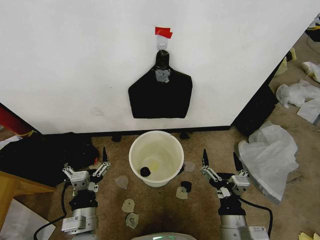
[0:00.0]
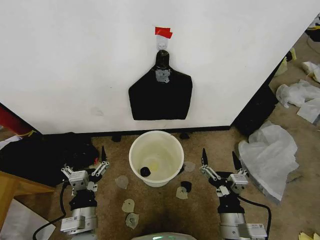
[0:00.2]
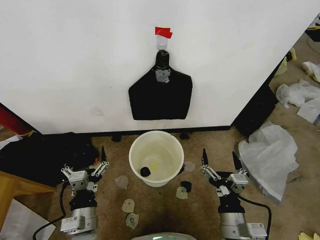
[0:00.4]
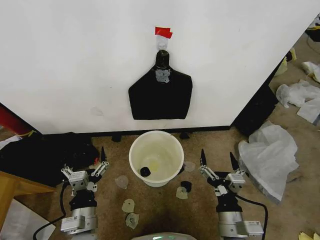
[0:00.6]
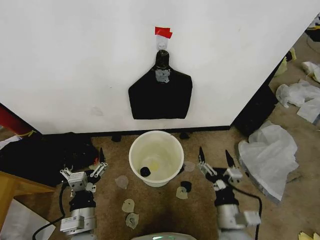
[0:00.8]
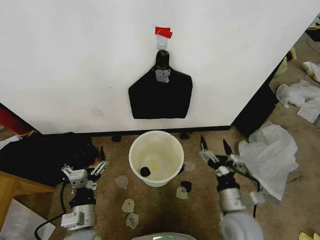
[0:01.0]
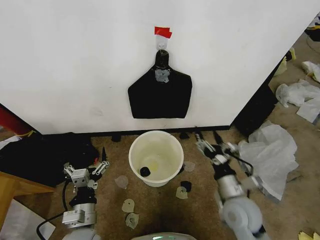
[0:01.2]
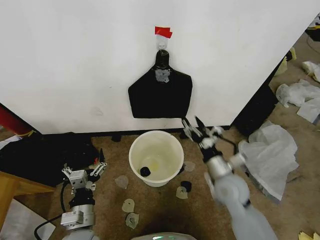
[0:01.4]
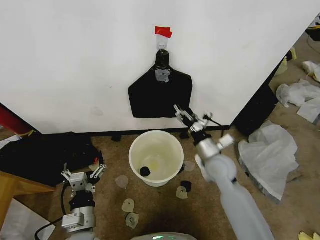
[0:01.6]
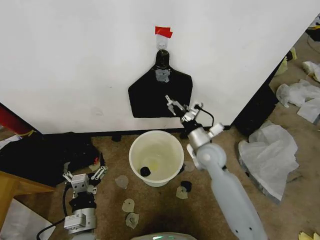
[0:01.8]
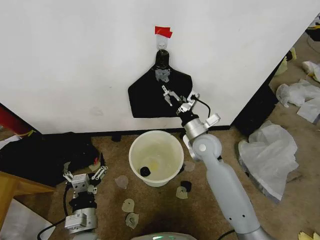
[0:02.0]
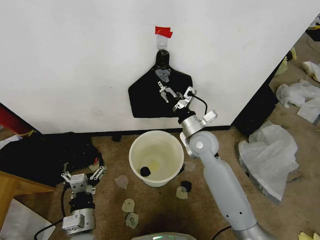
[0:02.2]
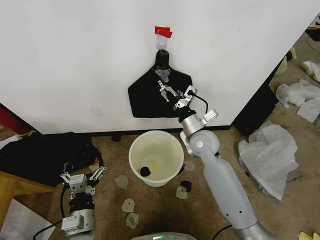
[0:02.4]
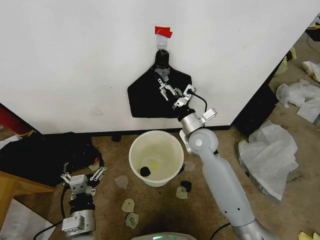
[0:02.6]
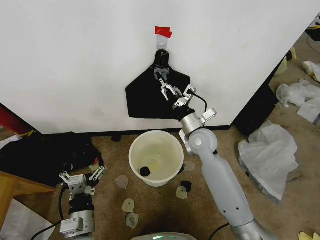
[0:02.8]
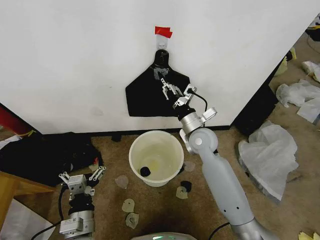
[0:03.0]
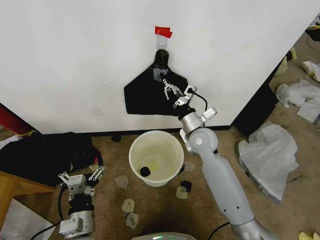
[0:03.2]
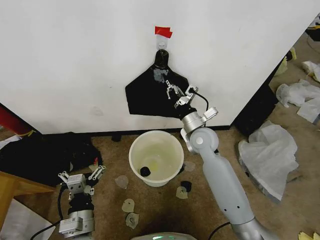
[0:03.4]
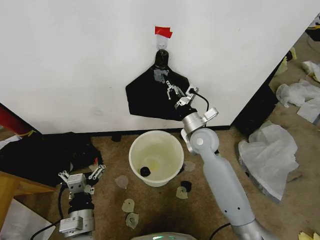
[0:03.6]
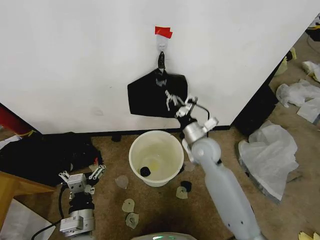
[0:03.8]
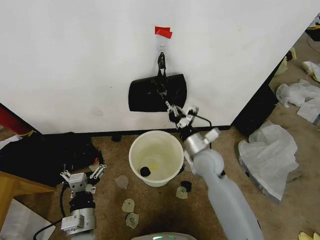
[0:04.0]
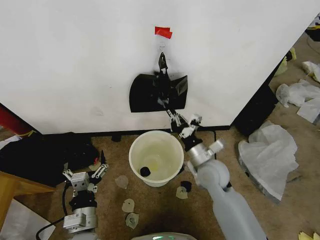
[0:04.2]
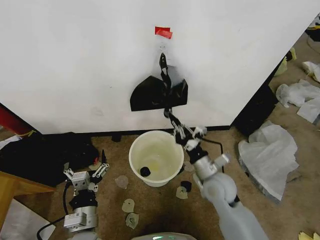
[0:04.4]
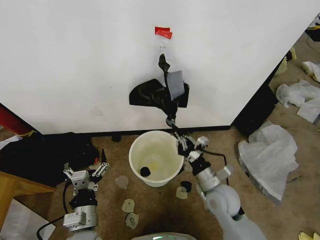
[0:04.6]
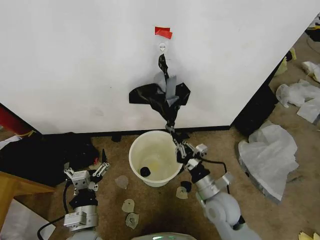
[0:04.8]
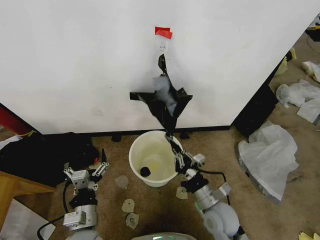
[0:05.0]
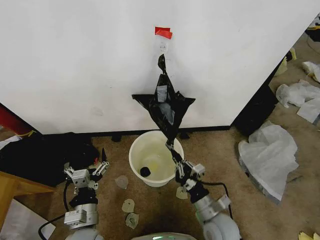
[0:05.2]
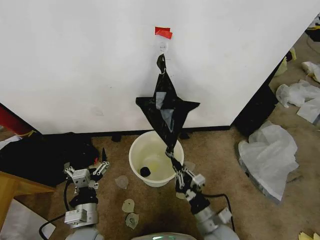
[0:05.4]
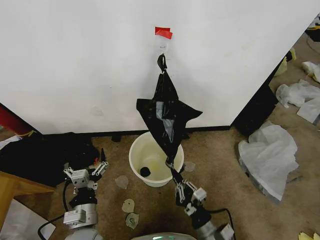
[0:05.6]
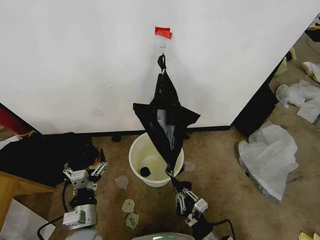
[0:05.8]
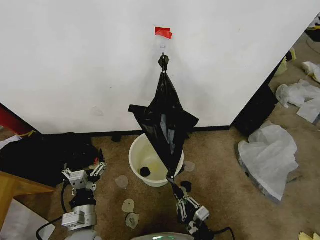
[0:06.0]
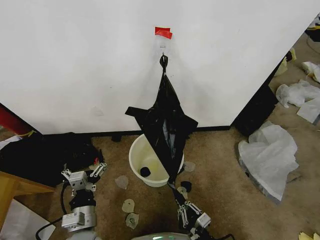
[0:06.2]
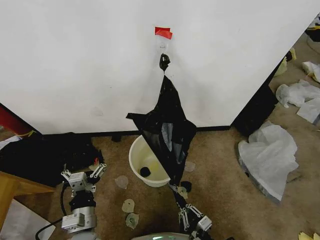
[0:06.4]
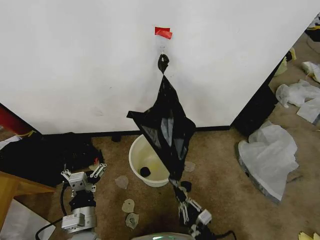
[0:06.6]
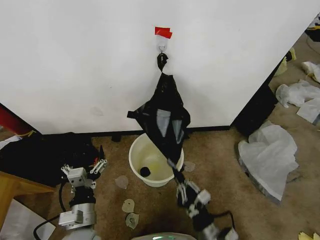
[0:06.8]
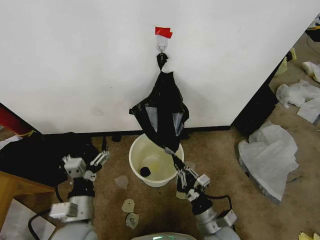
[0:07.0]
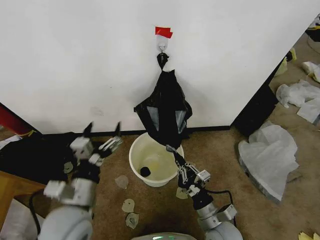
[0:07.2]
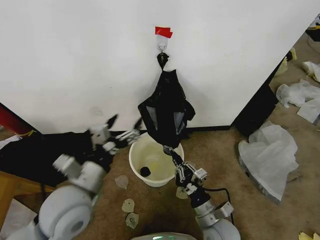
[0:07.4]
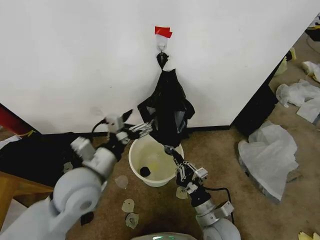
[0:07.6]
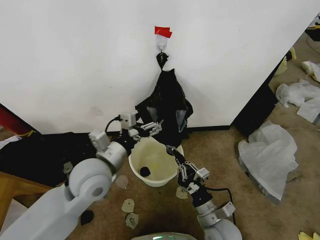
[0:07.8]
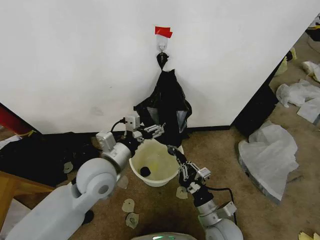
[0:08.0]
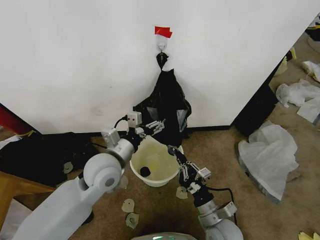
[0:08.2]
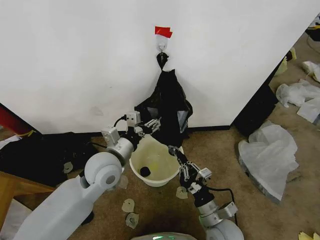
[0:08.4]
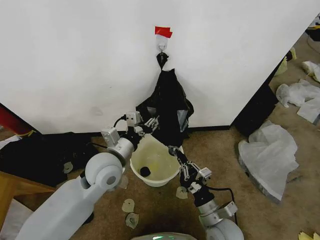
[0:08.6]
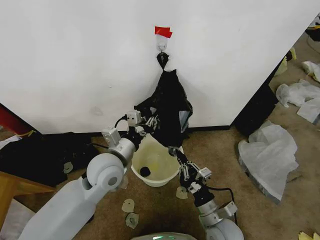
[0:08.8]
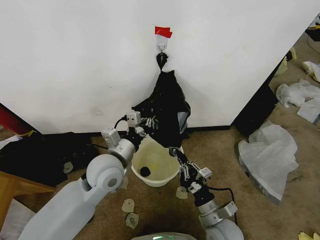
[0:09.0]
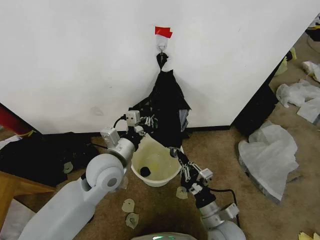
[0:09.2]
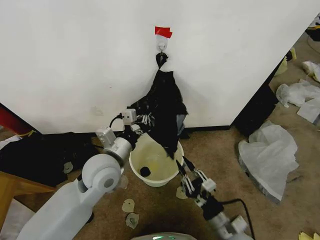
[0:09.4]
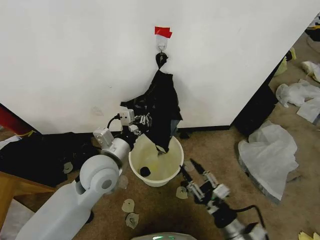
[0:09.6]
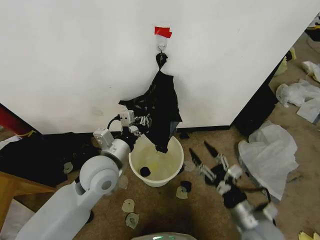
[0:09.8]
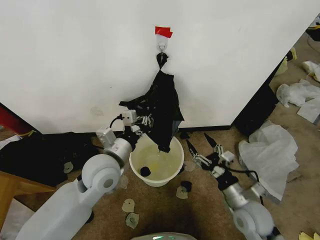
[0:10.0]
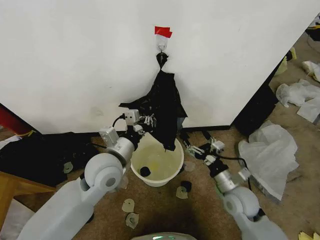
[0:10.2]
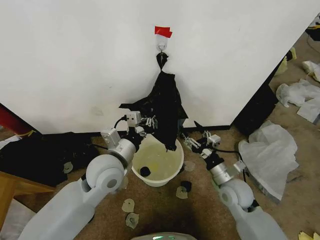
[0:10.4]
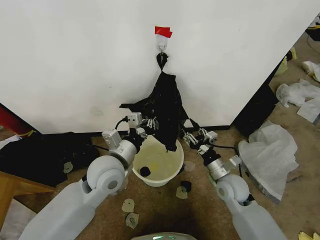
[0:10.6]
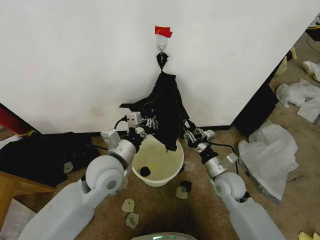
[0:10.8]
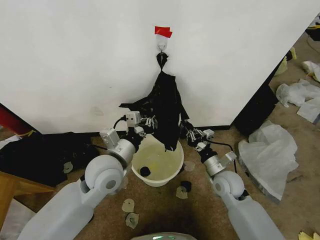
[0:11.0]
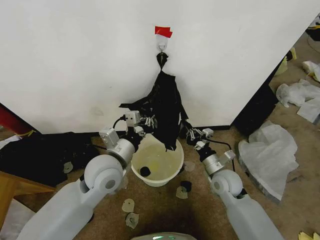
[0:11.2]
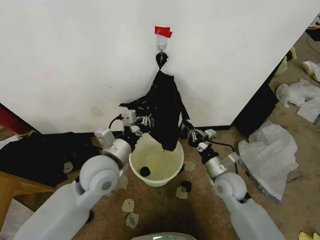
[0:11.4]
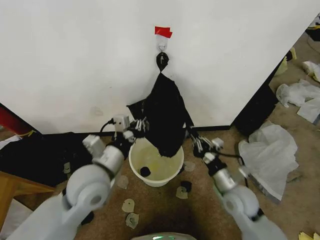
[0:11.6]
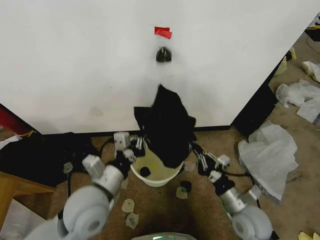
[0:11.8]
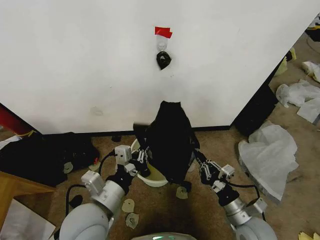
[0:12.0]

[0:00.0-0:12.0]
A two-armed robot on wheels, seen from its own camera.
Task of the whole recording: Place the garbage bag over the trash bin.
0:01.6 to 0:03.0: The right gripper goes about 5 cm forward, and closes up.
0:03.0 to 0:04.4: The right gripper is displaced backward and downward by about 15 cm.
0:04.4 to 0:06.0: The right gripper goes roughly 25 cm backward and downward.
0:06.0 to 0:07.6: The left gripper heads upward and forward, covering roughly 20 cm, while the right gripper goes roughly 10 cm forward and upward.
0:07.6 to 0:09.0: The left gripper travels forward by some 5 cm, and closes its fingers.
0:09.0 to 0:10.4: The right gripper travels forward and to the right by about 15 cm, and opens its fingers.
0:10.4 to 0:12.0: Both grippers travel together backward, approximately 10 cm. The right gripper closes its fingers.

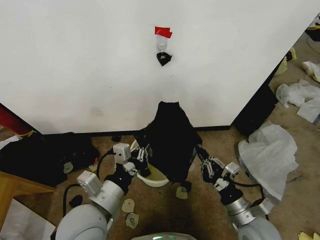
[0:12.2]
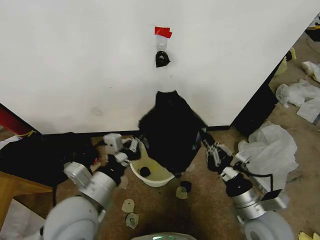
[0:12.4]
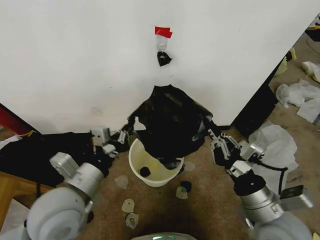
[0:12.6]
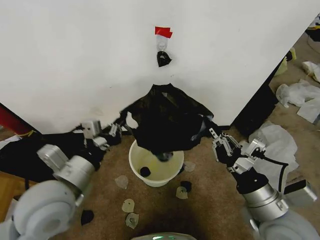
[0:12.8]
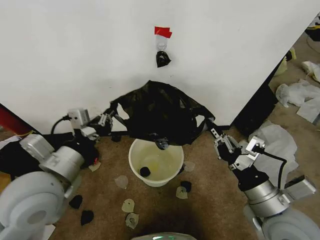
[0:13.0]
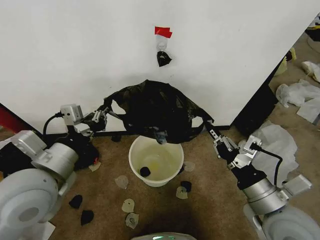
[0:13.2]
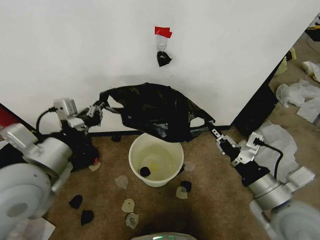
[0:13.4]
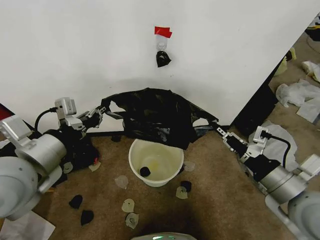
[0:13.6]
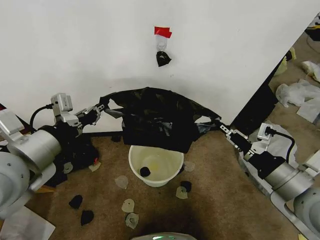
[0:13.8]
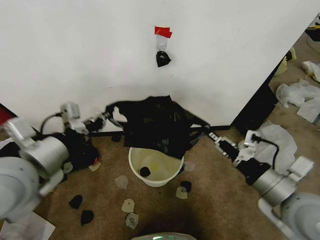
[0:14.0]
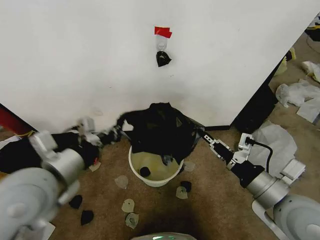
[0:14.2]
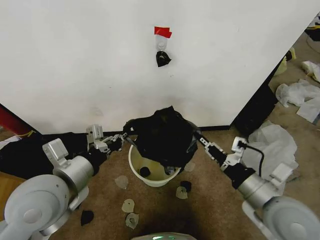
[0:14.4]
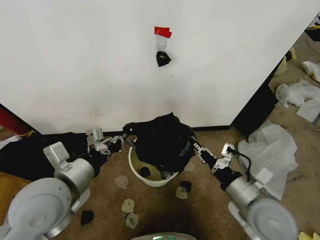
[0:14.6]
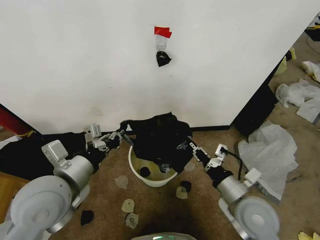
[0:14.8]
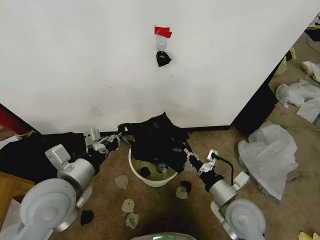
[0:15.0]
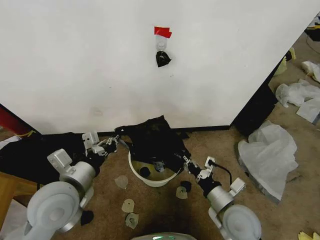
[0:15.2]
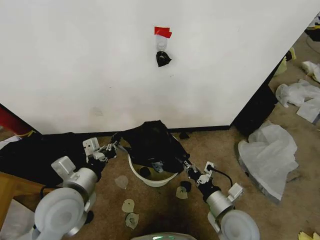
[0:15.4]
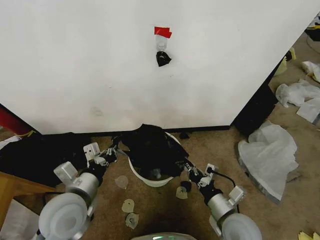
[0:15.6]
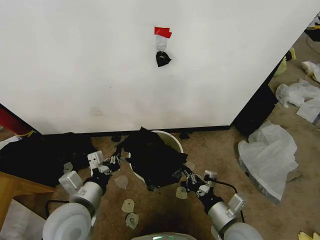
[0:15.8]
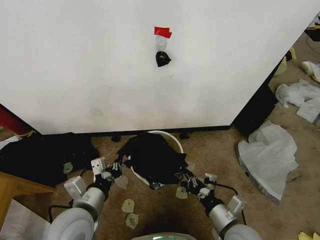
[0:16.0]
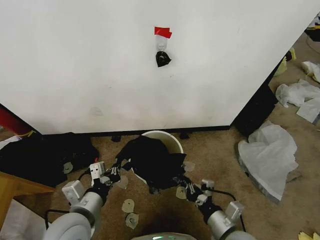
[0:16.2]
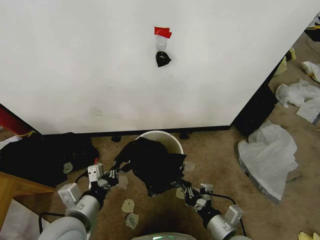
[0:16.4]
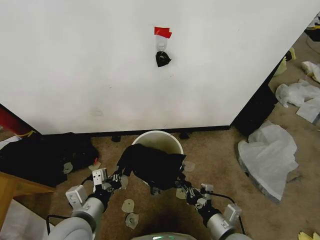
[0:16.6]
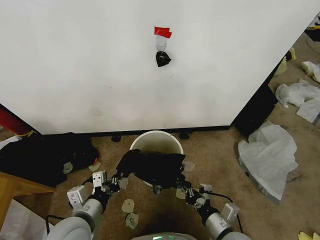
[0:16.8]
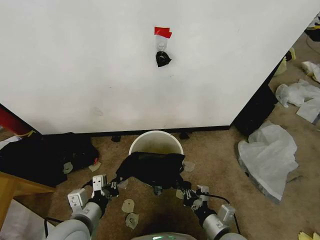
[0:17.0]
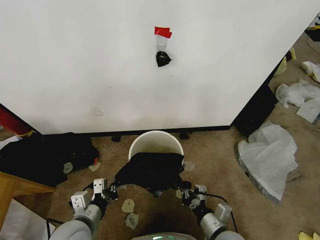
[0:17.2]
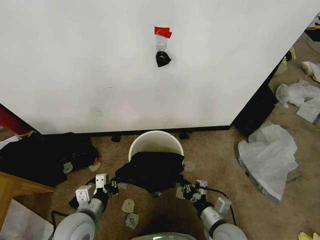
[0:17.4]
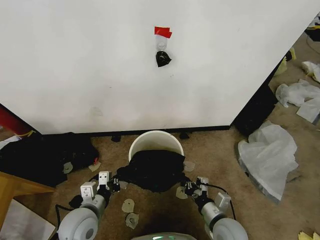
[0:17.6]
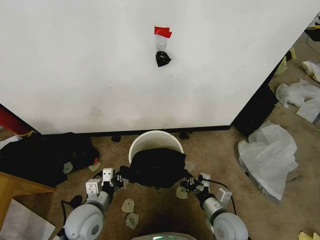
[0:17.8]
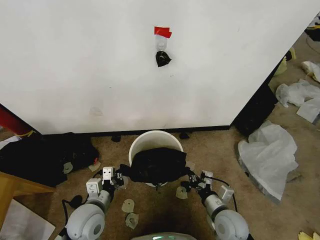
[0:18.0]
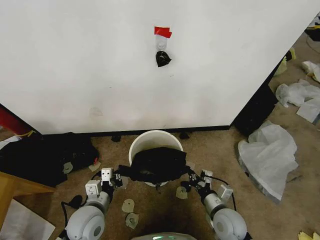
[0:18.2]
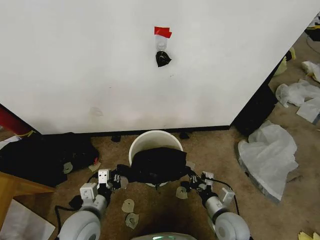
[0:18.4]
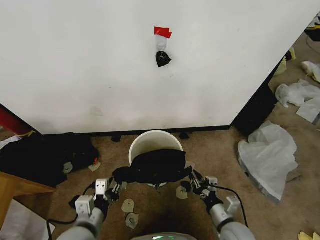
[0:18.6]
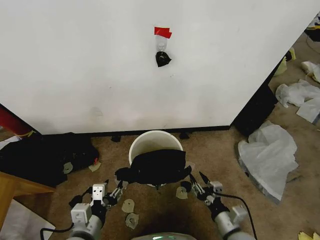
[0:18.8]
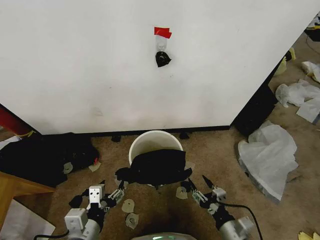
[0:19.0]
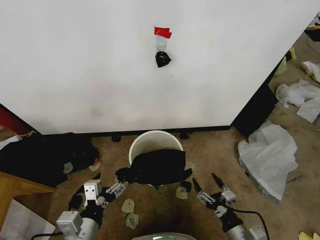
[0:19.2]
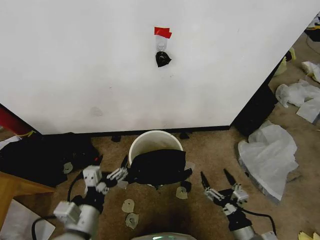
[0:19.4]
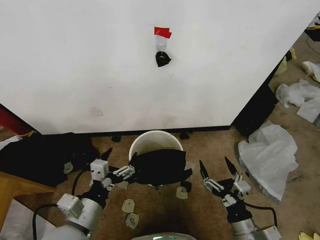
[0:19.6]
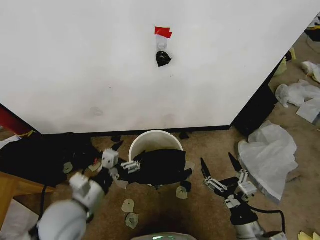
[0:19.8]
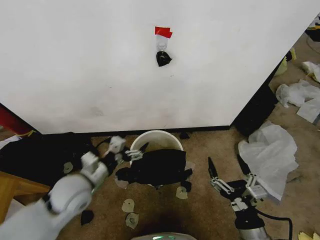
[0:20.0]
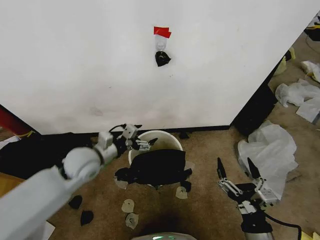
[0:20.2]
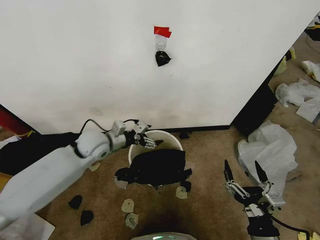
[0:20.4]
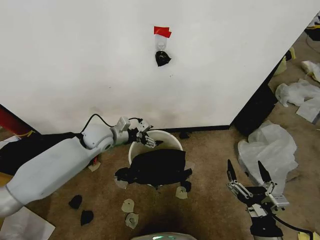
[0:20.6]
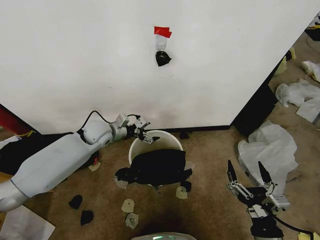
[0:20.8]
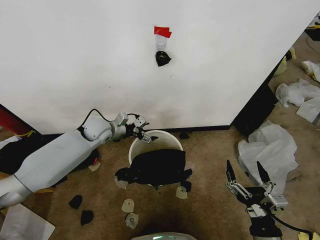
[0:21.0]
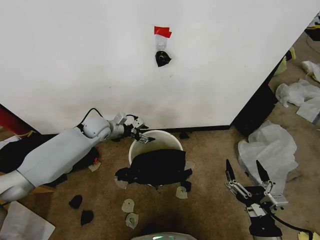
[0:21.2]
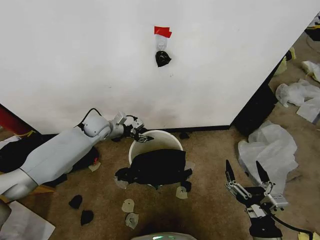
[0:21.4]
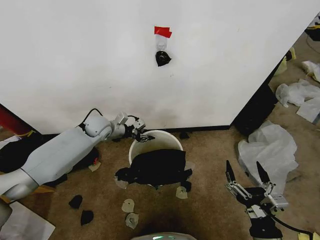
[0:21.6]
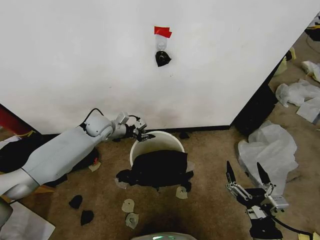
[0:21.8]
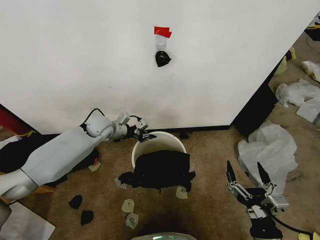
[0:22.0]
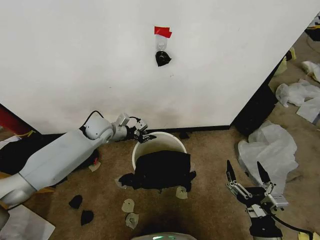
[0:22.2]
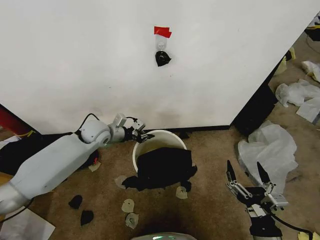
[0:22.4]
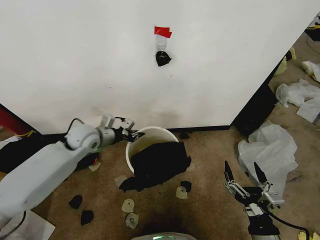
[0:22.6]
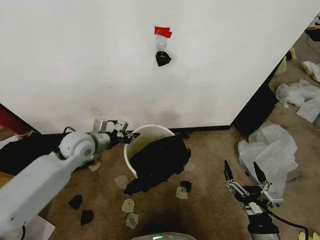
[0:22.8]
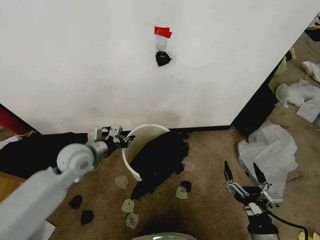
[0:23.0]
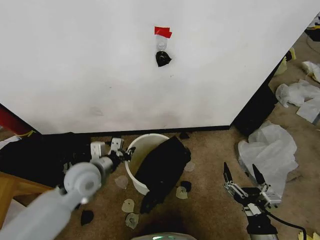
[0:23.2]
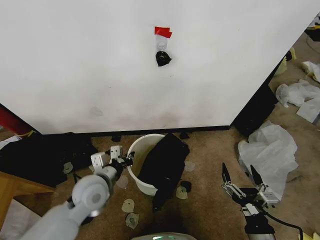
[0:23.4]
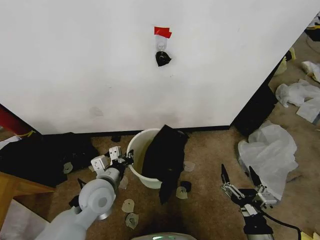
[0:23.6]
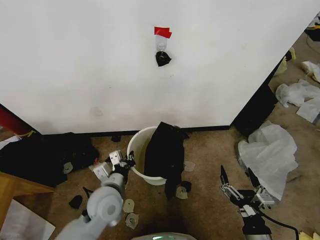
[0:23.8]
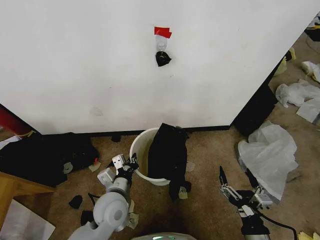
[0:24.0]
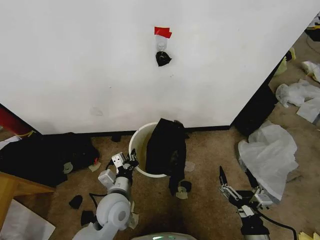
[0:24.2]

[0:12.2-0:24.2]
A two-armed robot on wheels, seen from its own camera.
Task of the whole recording: Place the garbage bag over the trash bin.
0:12.2 to 0:13.8: The right gripper moves upward, approximately 20 cm; the left gripper goes approximately 20 cm upward and to the left.
0:13.8 to 0:15.2: The right gripper goes approximately 20 cm downward and to the left. The left gripper travels downward by approximately 15 cm.
0:15.2 to 0:16.6: The right gripper is displaced backward by approximately 5 cm. The left gripper moves downward and backward, some 10 cm.
0:16.6 to 0:18.2: The right gripper goes some 10 cm forward; the left gripper is displaced downward by roughly 5 cm.
0:18.2 to 0:19.8: The right gripper shifts roughly 15 cm backward and upward, and opens up. Meanwhile the left gripper travels upward by about 10 cm, goes backward and returns, approximately 10 cm each way, and opens its fingers.
0:19.8 to 0:21.2: The left gripper shifts about 30 cm forward.
0:21.2 to 0:22.6: The left gripper travels backward by approximately 5 cm, and closes.
0:22.6 to 0:24.2: The left gripper goes about 25 cm backward, to the right and downward.